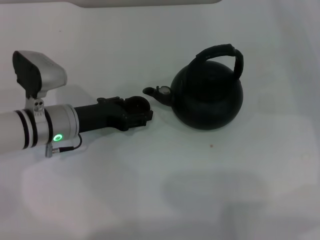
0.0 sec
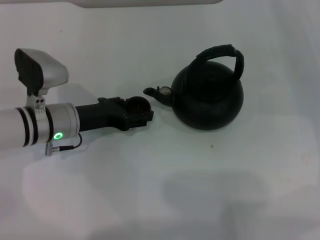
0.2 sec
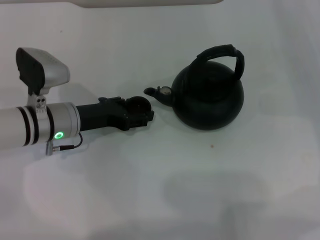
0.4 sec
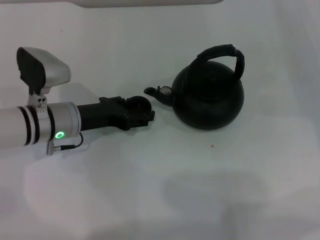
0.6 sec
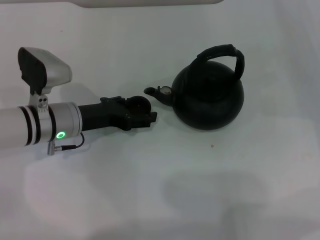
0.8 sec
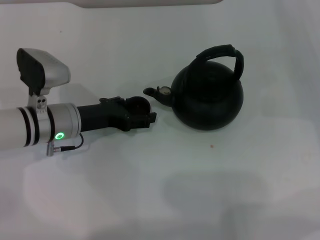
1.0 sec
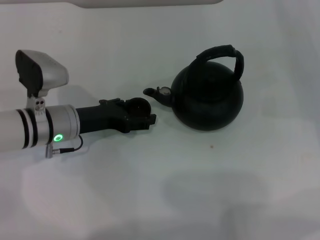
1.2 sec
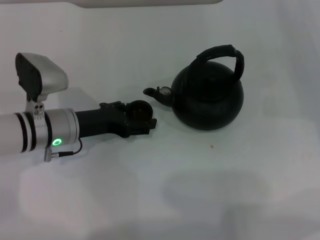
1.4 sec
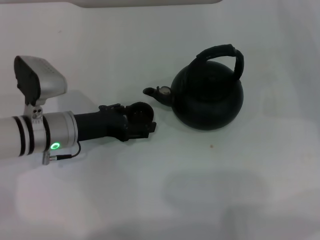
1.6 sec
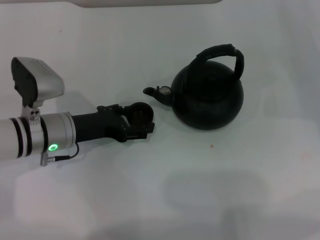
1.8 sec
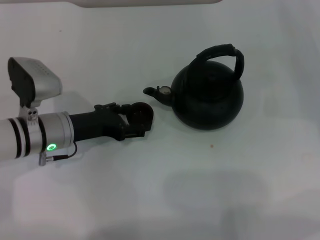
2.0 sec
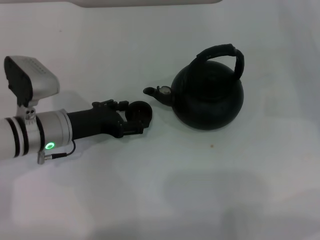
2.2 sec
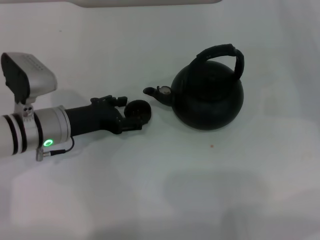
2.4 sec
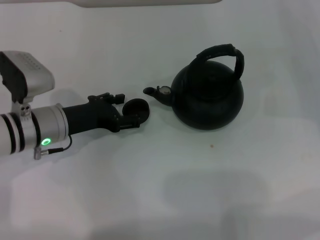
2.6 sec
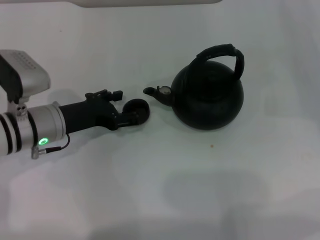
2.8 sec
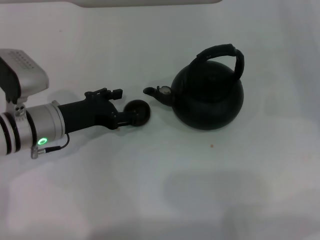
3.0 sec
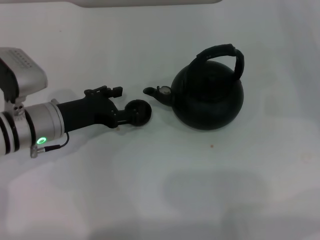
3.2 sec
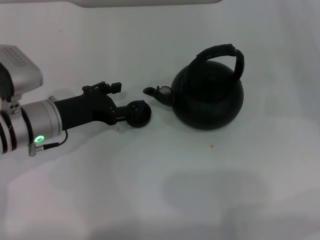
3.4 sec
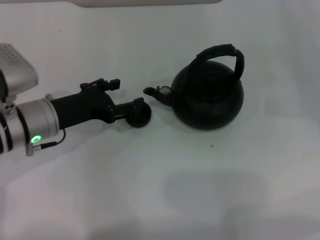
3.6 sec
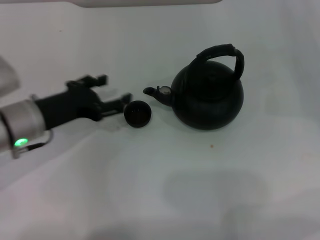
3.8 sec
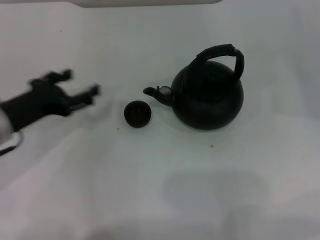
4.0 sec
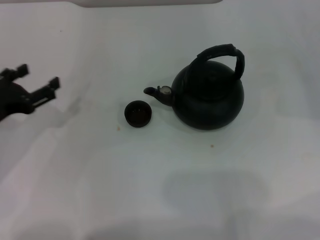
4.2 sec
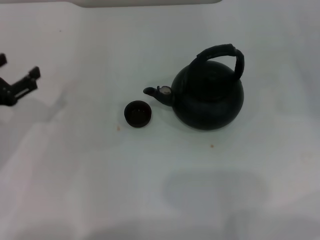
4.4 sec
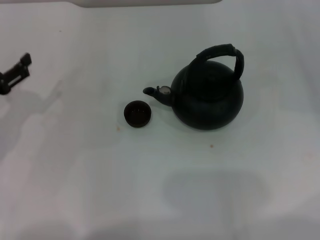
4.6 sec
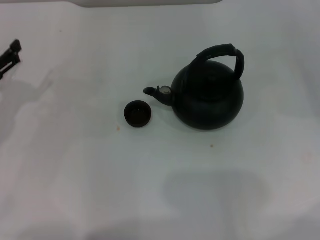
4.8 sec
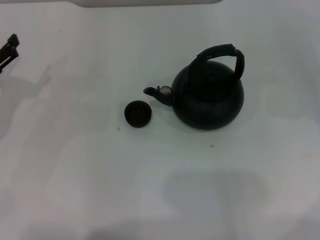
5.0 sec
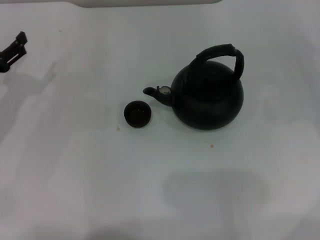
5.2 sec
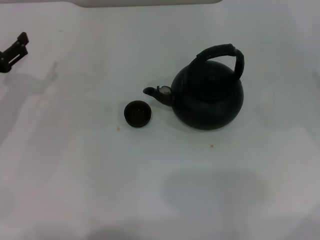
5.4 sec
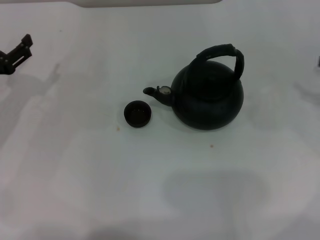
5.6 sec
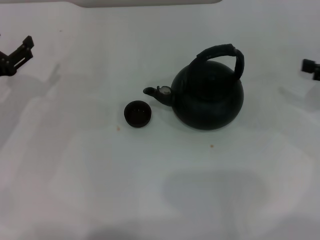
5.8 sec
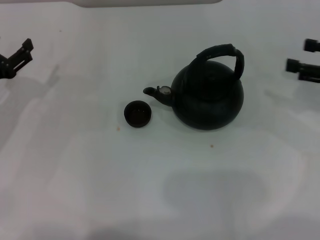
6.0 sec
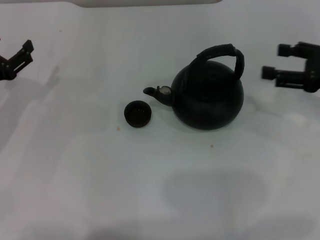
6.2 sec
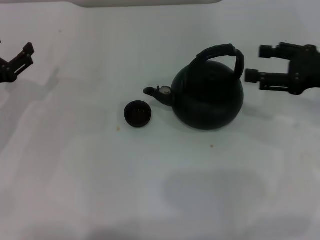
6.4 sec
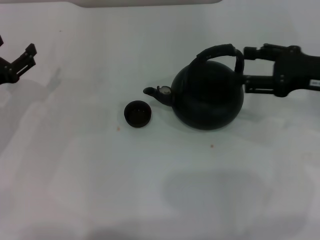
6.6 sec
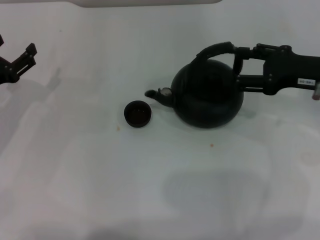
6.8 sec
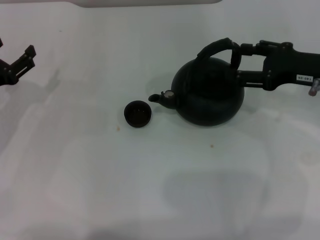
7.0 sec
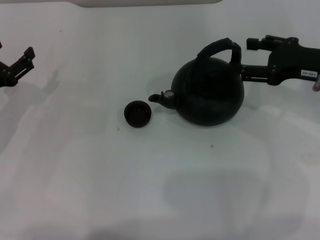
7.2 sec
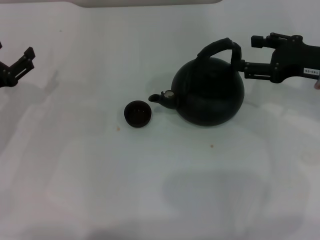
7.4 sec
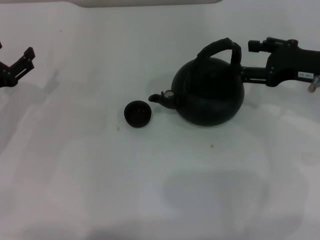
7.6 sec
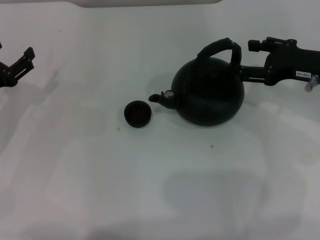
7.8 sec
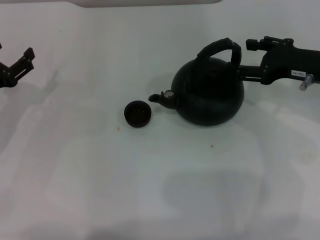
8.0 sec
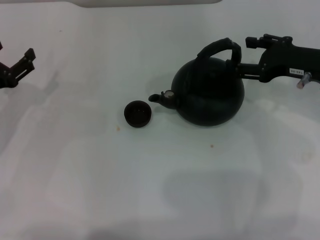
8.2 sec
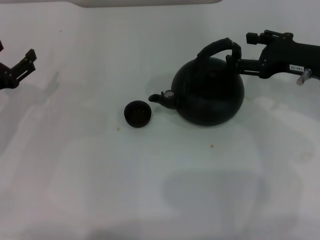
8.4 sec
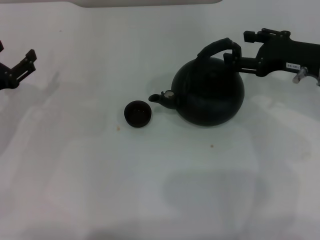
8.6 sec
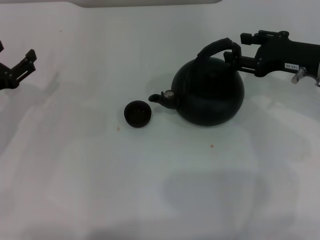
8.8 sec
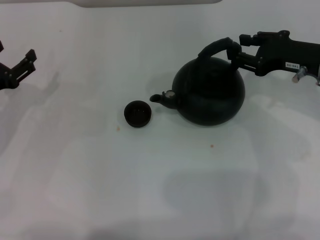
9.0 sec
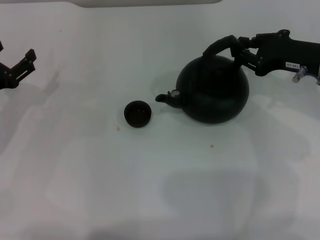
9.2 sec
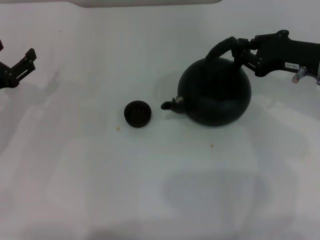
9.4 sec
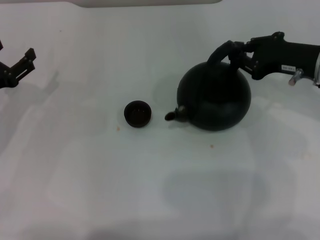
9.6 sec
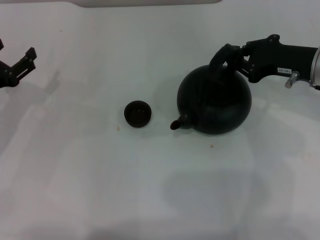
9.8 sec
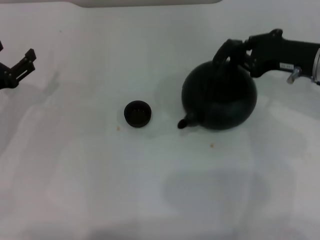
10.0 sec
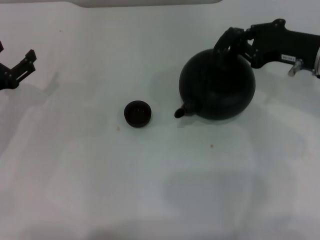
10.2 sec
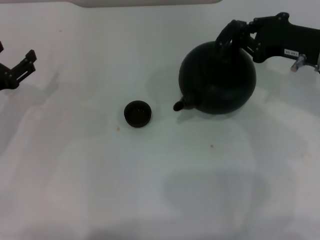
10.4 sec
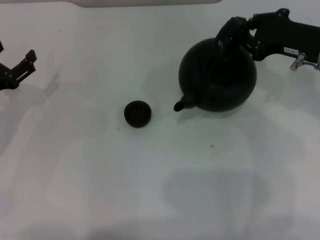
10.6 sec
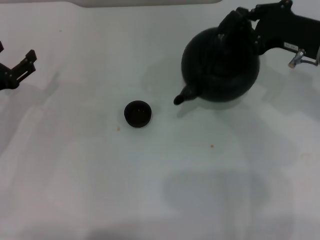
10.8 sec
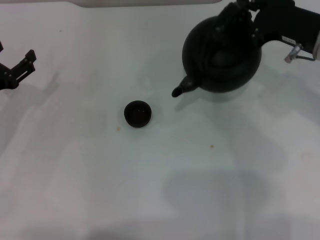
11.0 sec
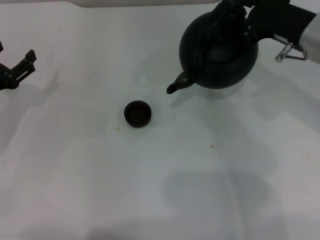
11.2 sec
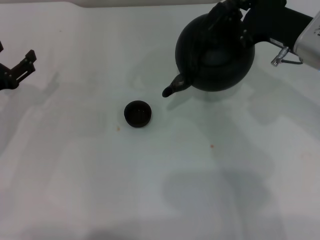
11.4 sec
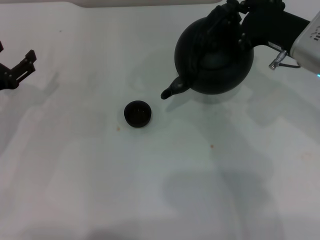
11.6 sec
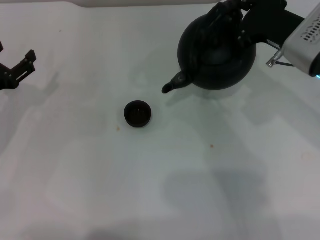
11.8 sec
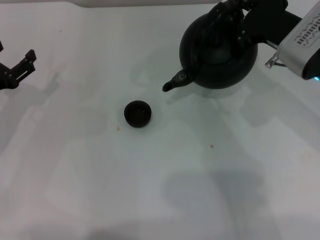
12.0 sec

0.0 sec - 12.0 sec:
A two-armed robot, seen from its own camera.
Task of the whole recording: Grasp the handle of the teapot with one hand and pour tea into the teacup.
Step, 0.0 sec - 3.6 sec: Place the teacup in the center of view with the left gripper.
Step, 3.8 sec - 10.8 sec: Pick up the teapot with the right gripper.
0.0 sec - 1.6 sec: The left gripper opens.
1.6 sec - 3.0 sec: There are only small adjustments of the grippers.
3.0 sec - 4.4 sec: The left gripper heads to the left and backward, covering roughly 10 cm.
4.4 sec - 6.0 sec: The left gripper shifts by roughly 5 cm. Meanwhile the right gripper heads to the left and upward, covering some 10 cm.
6.0 sec - 7.6 sec: The right gripper is displaced to the left by some 5 cm.
7.6 sec - 9.0 sec: The grippers make only small movements.
9.0 sec - 10.4 sec: The right gripper closes.
10.4 sec - 12.0 sec: The right gripper moves to the left, some 5 cm.

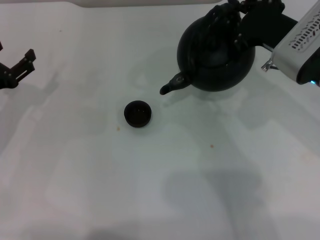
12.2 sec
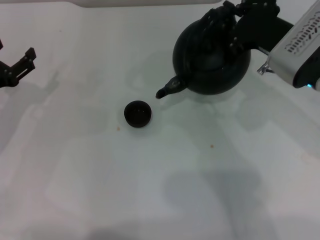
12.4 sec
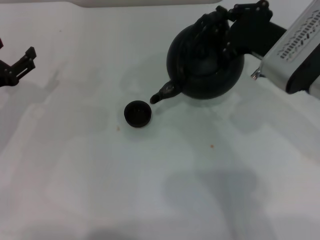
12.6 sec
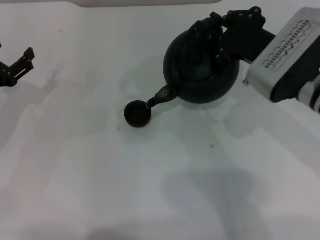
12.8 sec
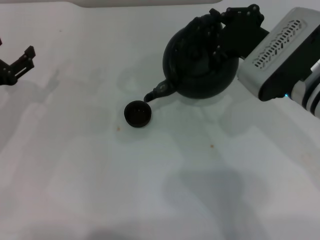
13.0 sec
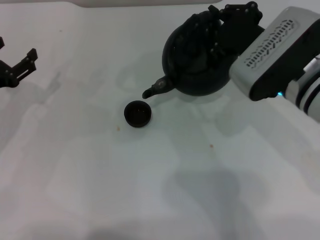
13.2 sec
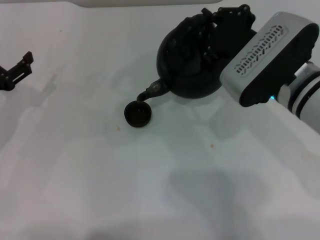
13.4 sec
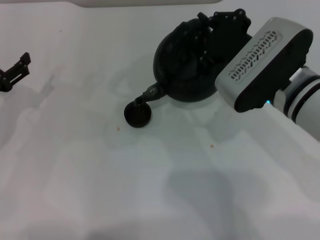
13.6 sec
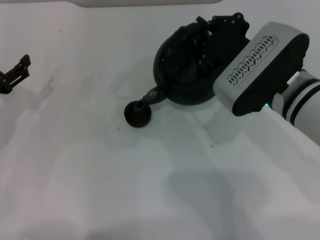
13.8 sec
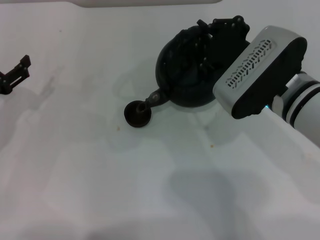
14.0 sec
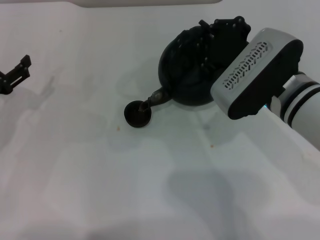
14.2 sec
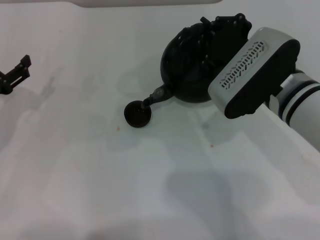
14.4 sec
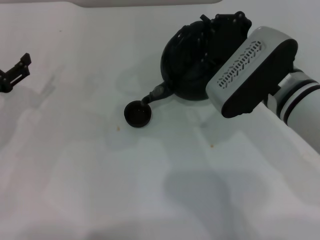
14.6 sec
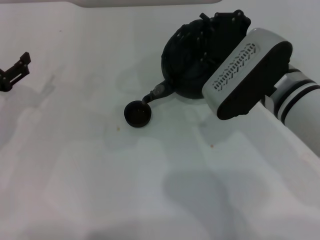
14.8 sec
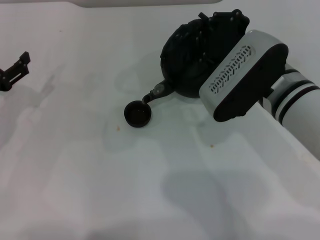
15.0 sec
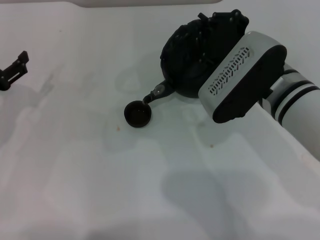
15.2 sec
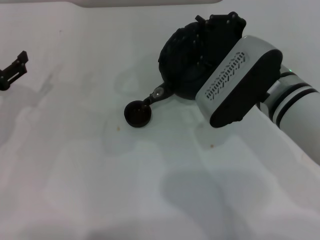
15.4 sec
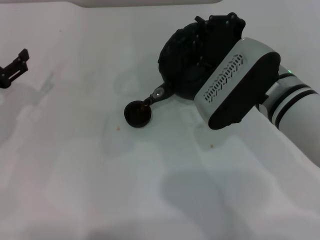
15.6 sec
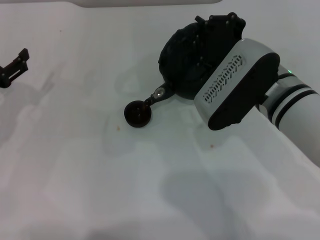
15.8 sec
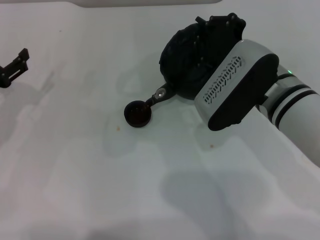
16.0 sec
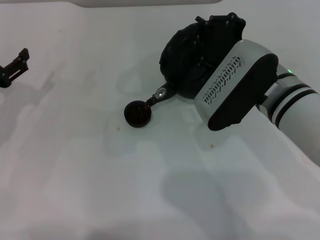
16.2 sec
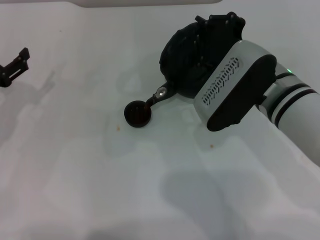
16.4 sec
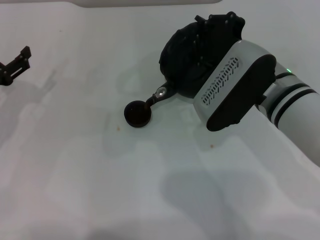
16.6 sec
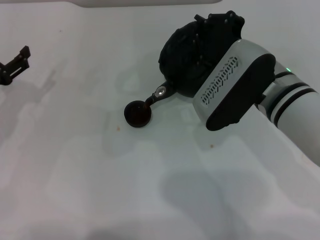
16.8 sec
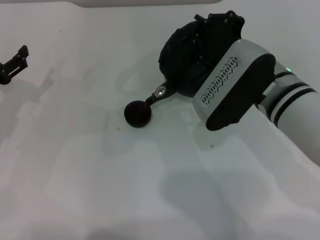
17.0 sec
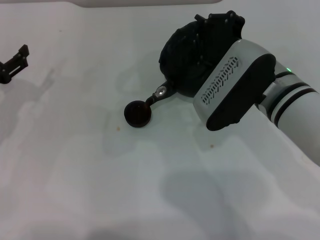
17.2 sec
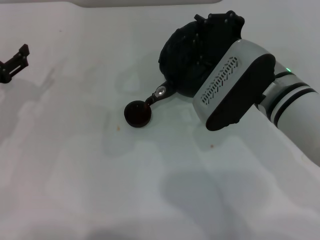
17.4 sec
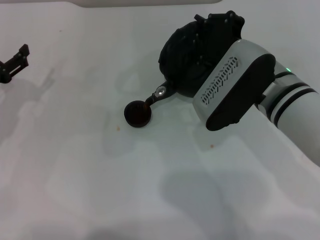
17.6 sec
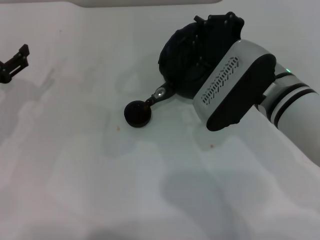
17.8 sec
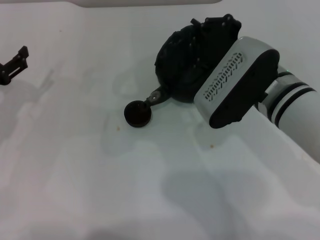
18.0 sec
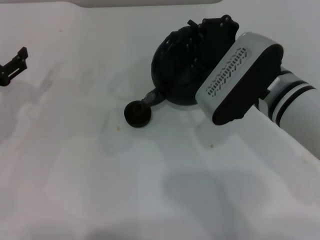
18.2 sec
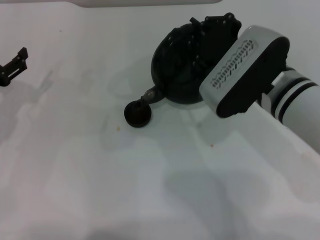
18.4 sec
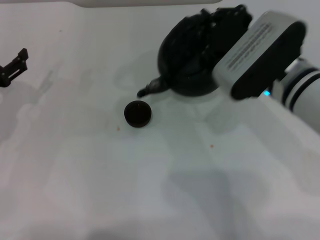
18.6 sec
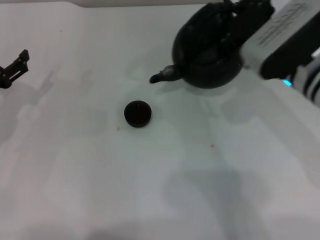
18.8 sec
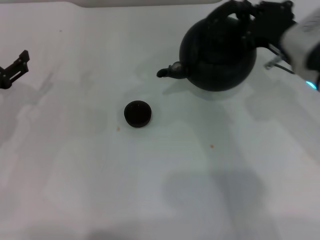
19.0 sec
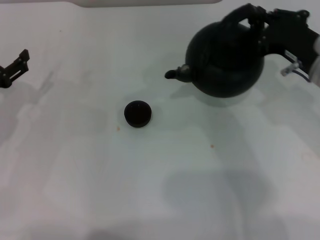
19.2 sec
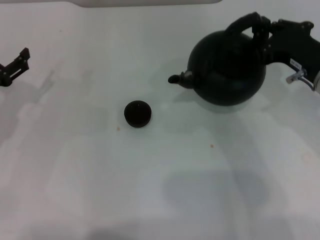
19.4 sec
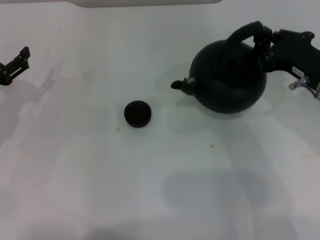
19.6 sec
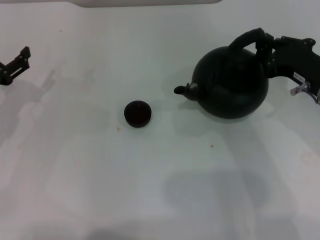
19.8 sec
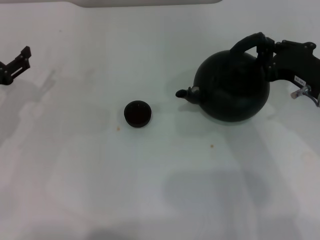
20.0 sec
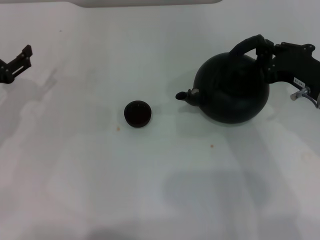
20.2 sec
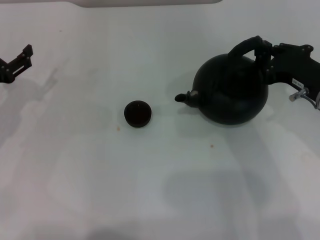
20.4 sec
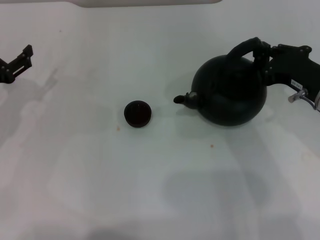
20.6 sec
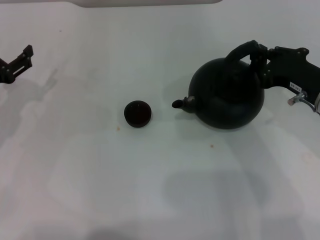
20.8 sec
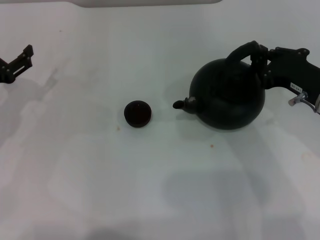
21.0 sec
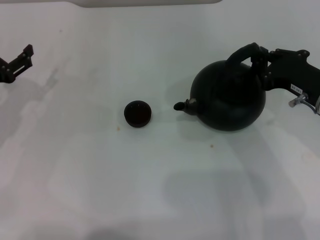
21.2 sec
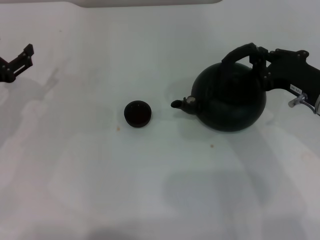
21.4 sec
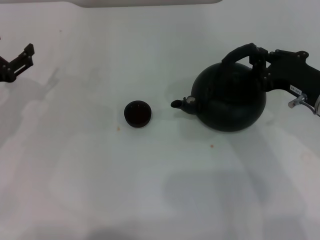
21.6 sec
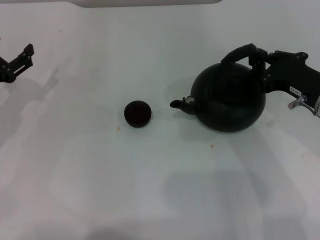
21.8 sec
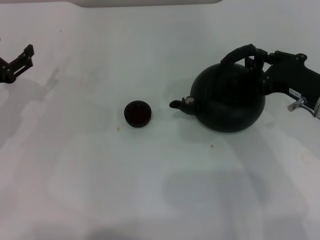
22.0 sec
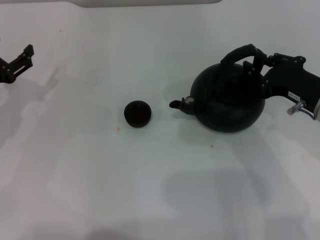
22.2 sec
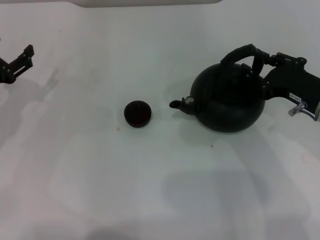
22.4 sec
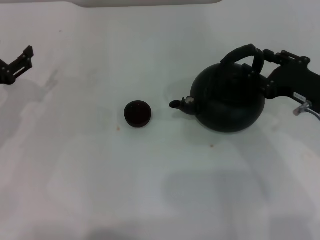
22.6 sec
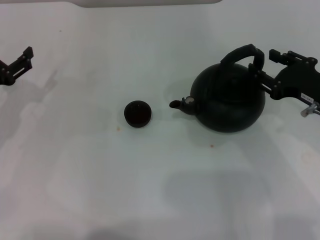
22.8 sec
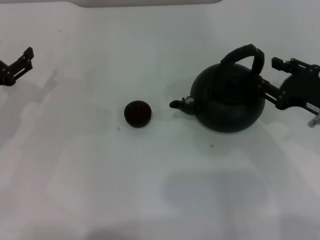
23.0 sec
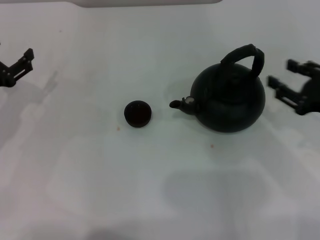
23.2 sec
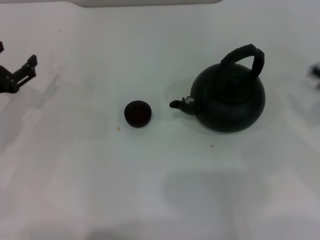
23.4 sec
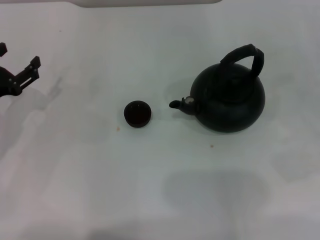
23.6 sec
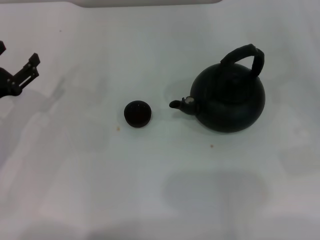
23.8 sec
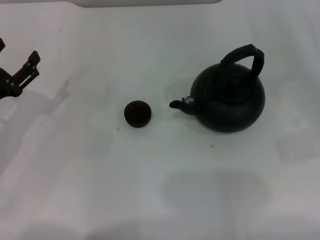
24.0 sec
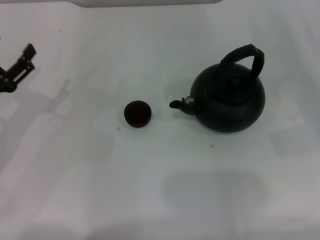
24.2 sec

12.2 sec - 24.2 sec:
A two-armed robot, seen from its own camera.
Task of the whole recording: Grasp the handle of the teapot with one hand and pour tea into the teacup.
Step, 12.2 sec - 18.6 sec: Pour tea into the teacup with the right gripper.
Step, 18.8 sec - 22.8 sec: Put down the teapot with the right gripper.
12.2 sec - 13.8 sec: The right gripper travels to the left by approximately 5 cm.
13.8 sec - 15.2 sec: The grippers move only a little.
15.2 sec - 16.6 sec: The two grippers keep their place.
16.6 sec - 18.2 sec: There are only small adjustments of the grippers.
18.2 sec - 19.8 sec: The right gripper heads to the right, covering about 10 cm.
19.8 sec - 21.2 sec: The two grippers keep their place.
21.2 sec - 22.6 sec: The right gripper opens.
22.6 sec - 24.2 sec: The right gripper travels to the right by roughly 15 cm.
